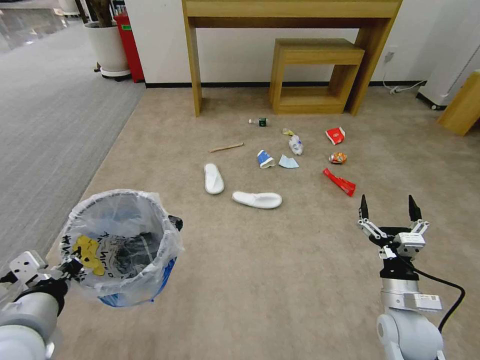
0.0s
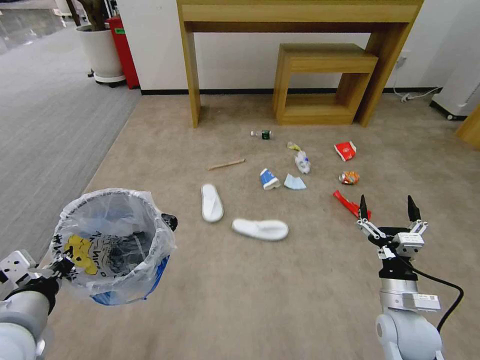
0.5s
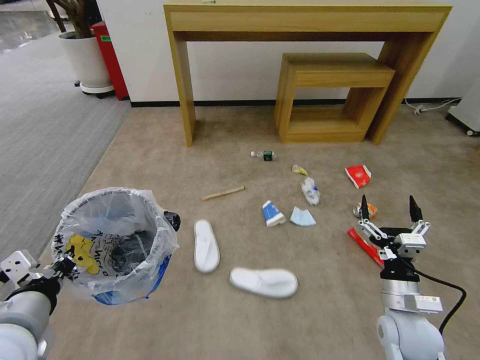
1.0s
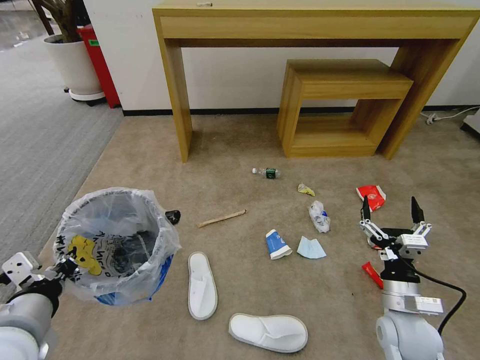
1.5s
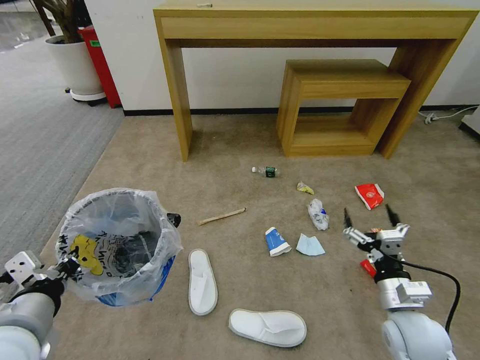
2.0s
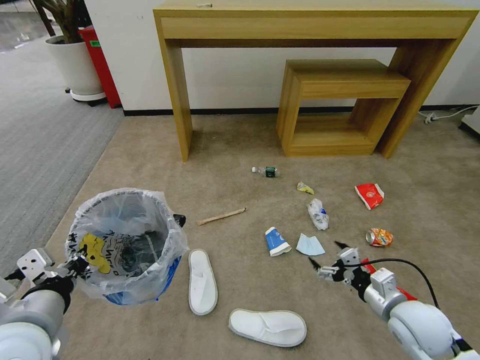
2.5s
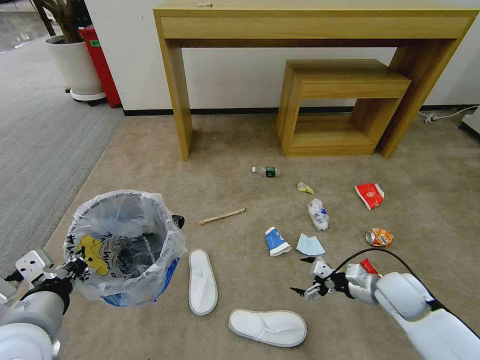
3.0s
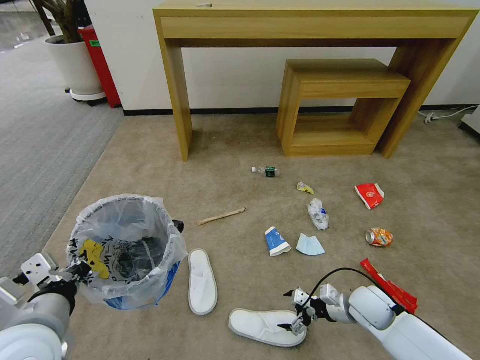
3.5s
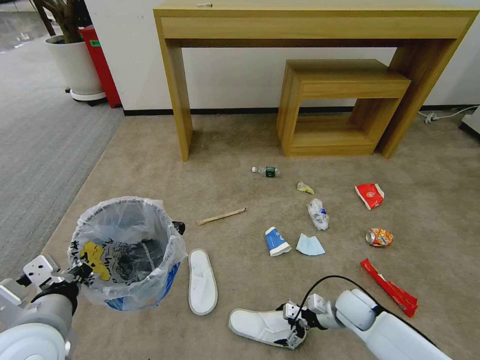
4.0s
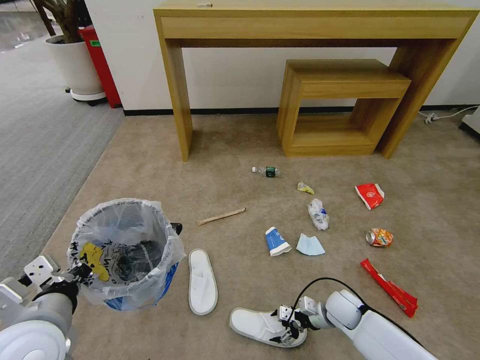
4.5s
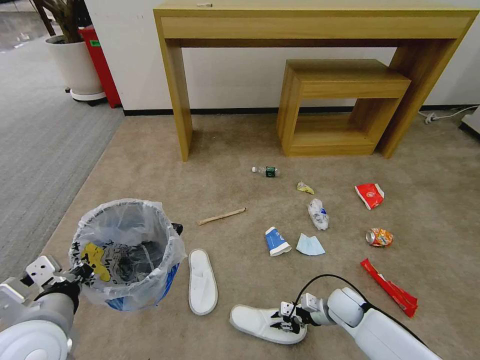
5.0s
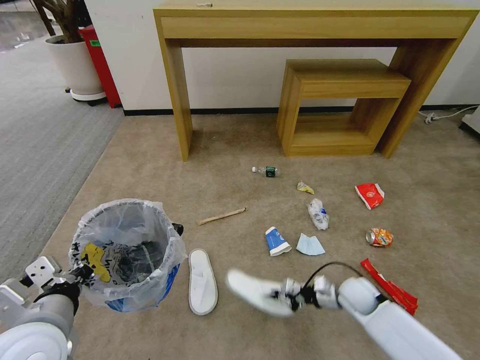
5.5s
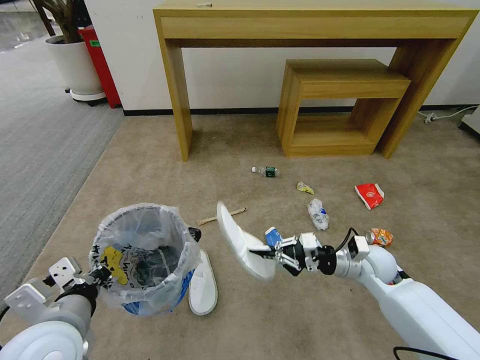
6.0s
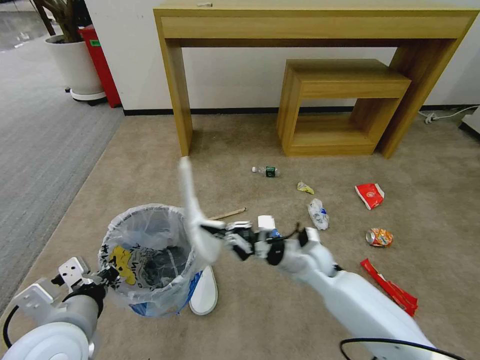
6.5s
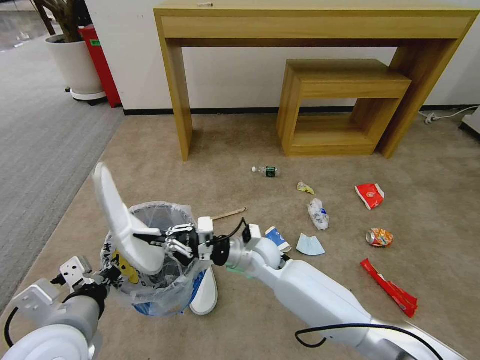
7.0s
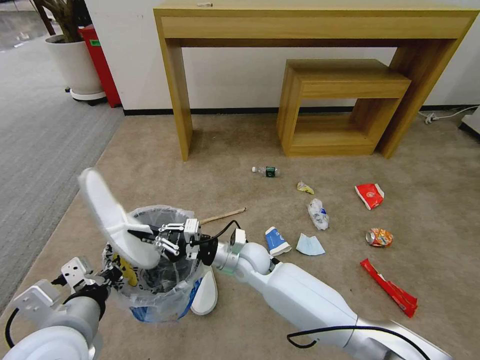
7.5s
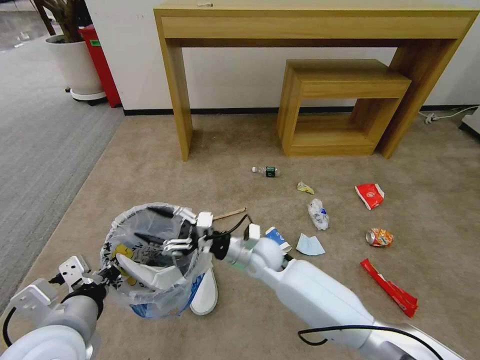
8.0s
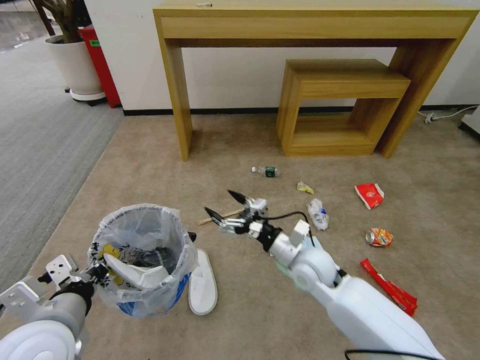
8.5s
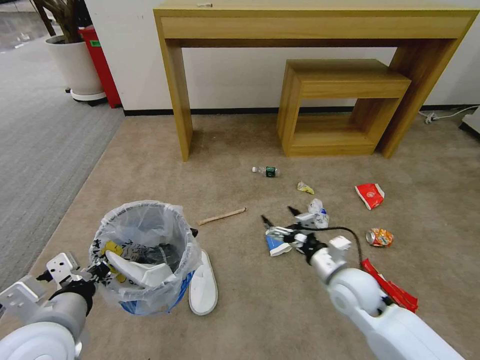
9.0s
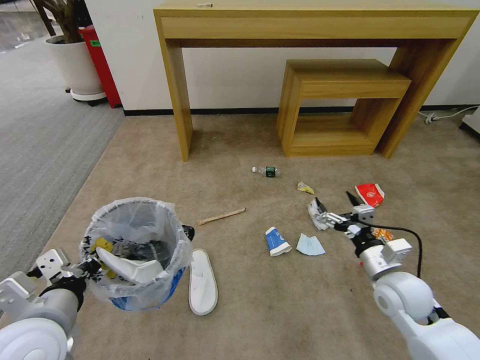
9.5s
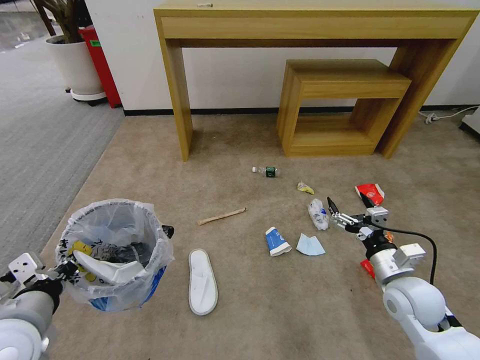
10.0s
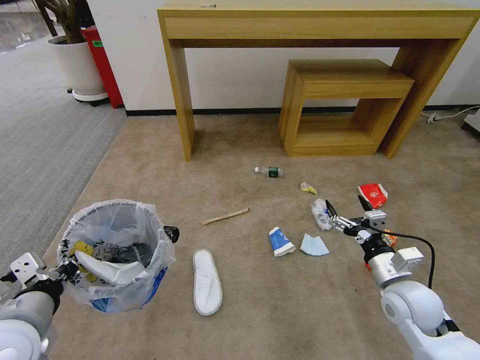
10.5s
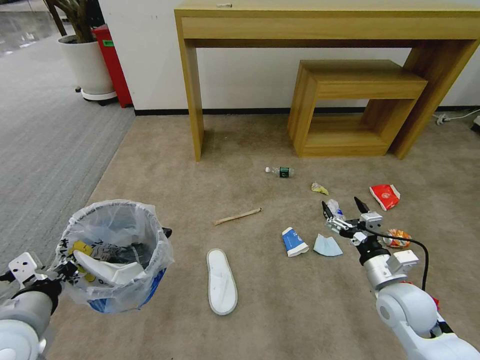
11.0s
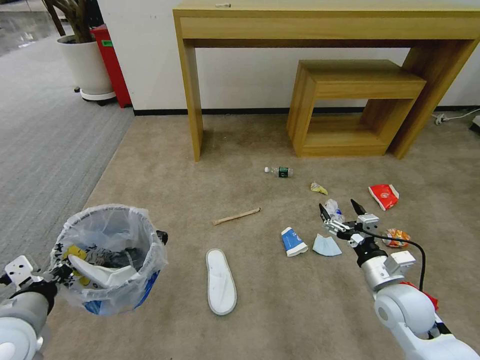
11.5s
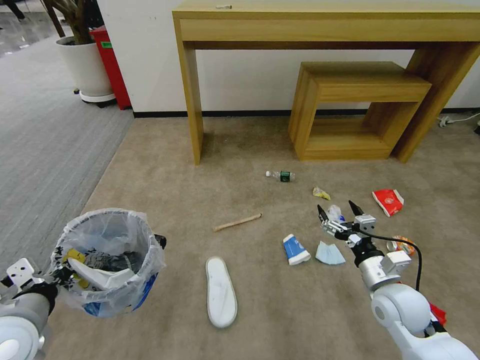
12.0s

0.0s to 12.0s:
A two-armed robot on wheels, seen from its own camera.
Task of the whole recording: Pick up the trash bin and place the garbage on the floor into it.
2.0s to 4.0s: The right gripper moves downward and forward, about 15 cm.
4.0s to 6.0s: The right gripper goes some 15 cm upward, and closes.
6.0s to 8.0s: The right gripper is displaced to the left by roughly 25 cm, and opens.
8.0s to 10.0s: The right gripper moves to the right, some 30 cm. Meanwhile the left gripper heads to the left, covering some 5 cm.

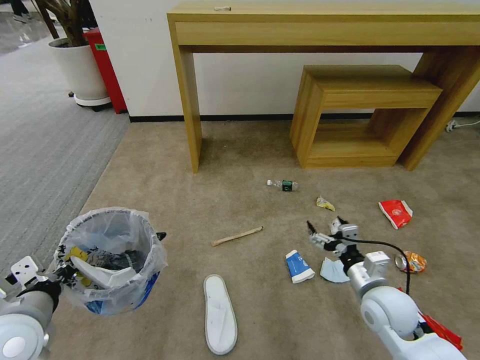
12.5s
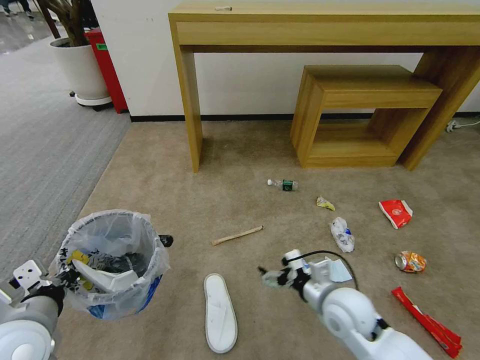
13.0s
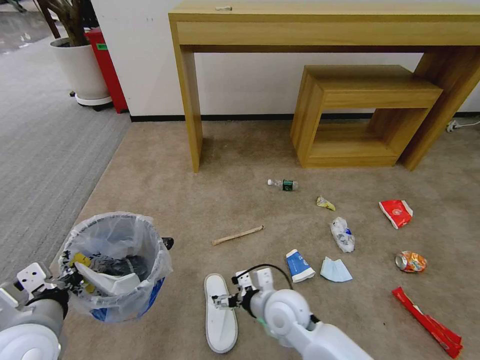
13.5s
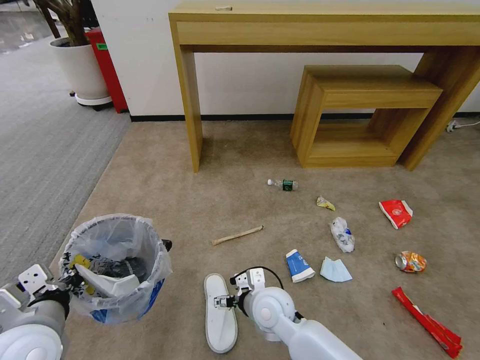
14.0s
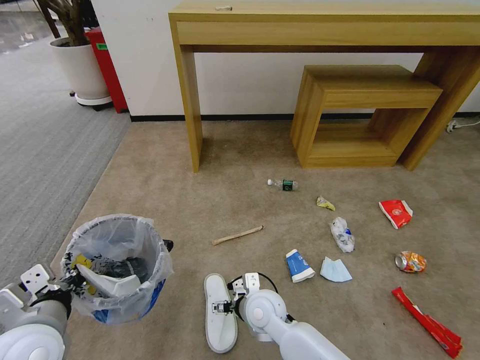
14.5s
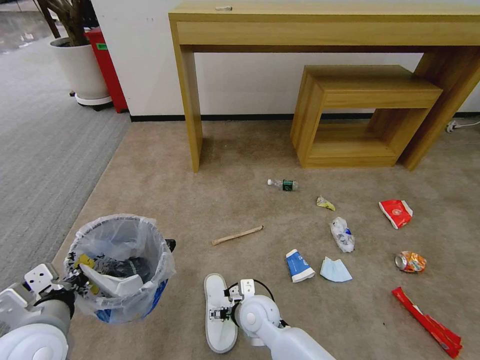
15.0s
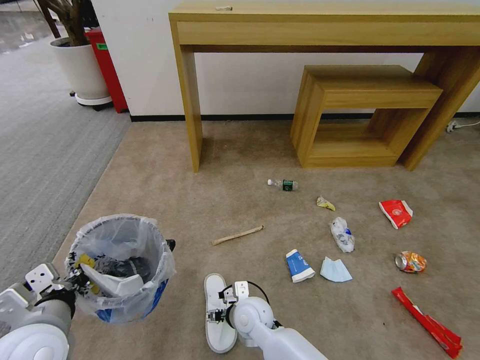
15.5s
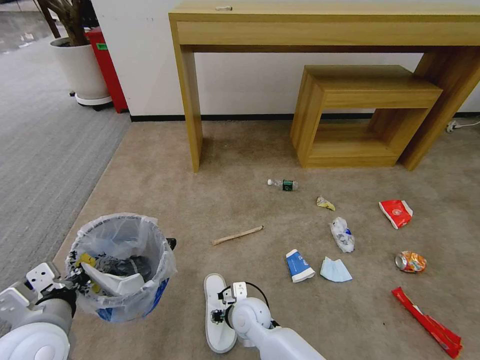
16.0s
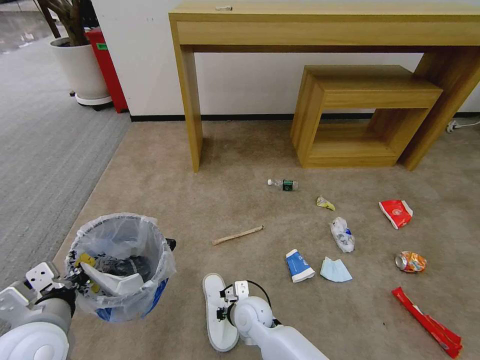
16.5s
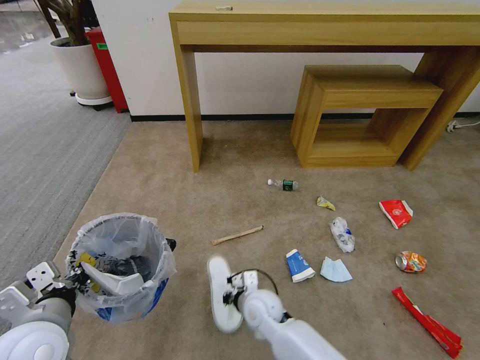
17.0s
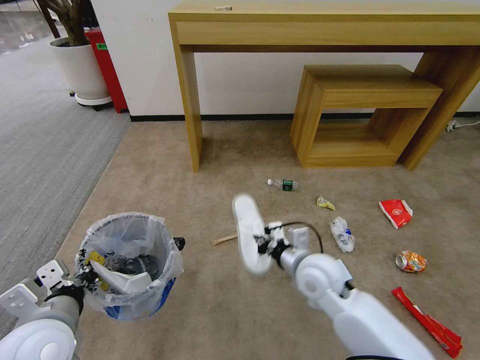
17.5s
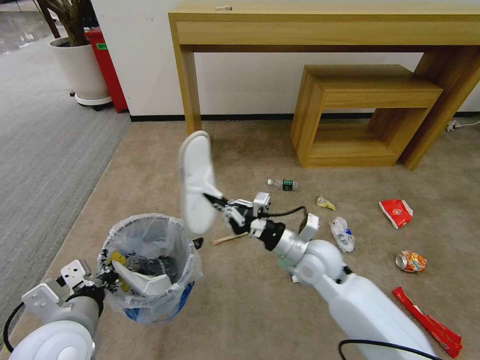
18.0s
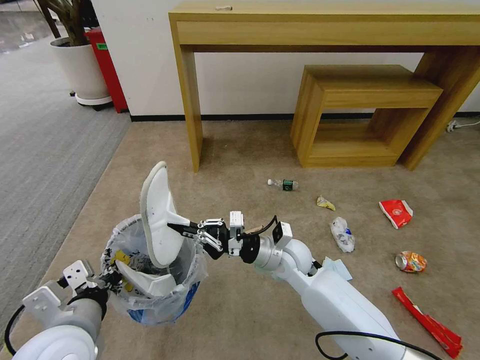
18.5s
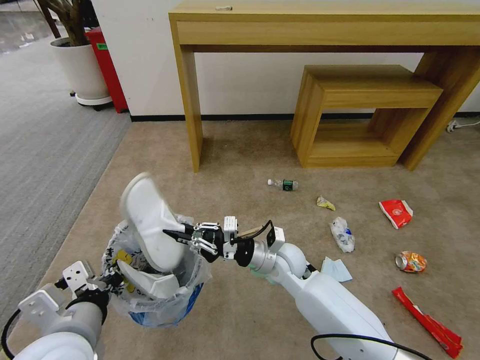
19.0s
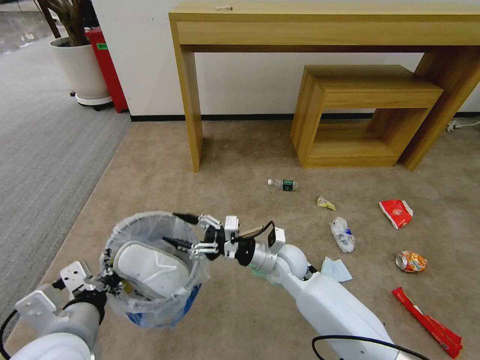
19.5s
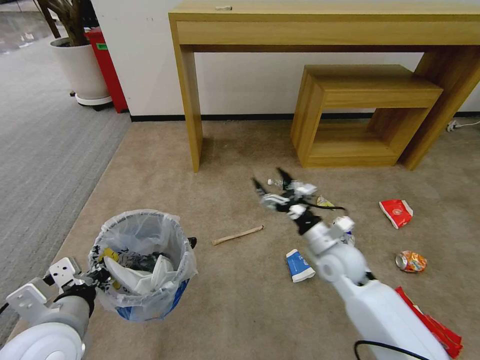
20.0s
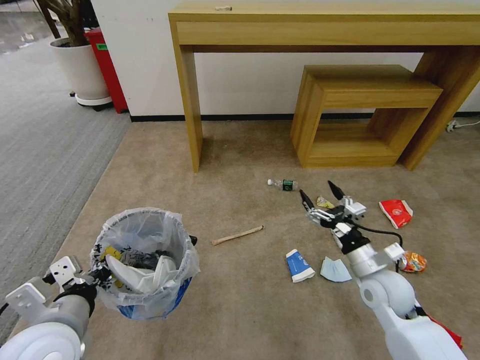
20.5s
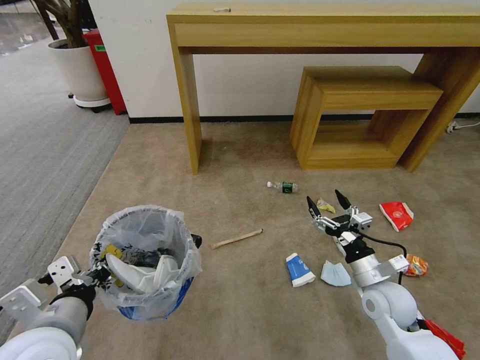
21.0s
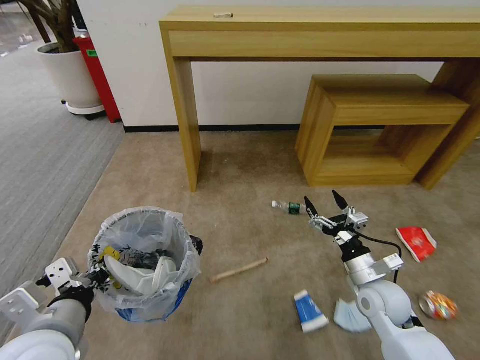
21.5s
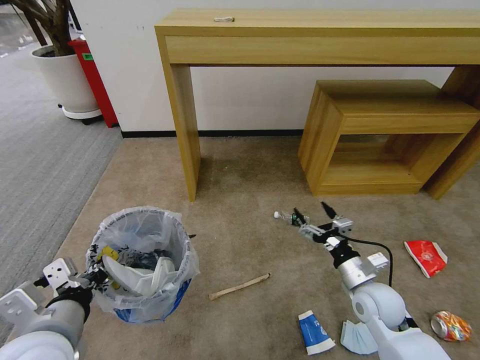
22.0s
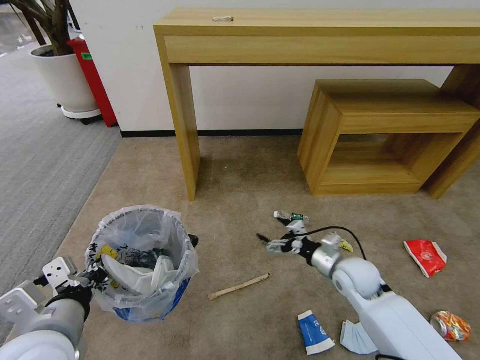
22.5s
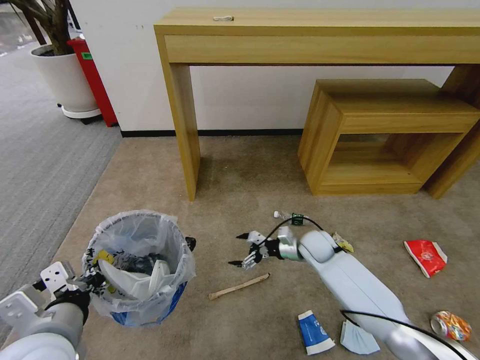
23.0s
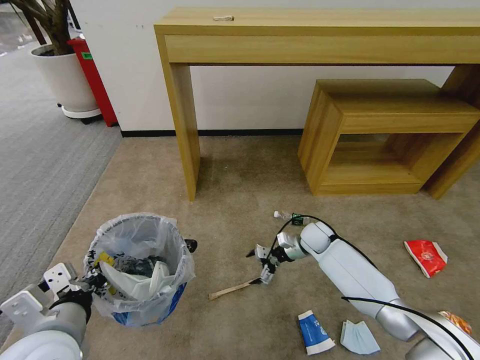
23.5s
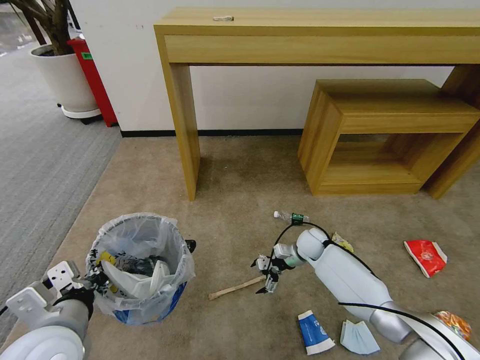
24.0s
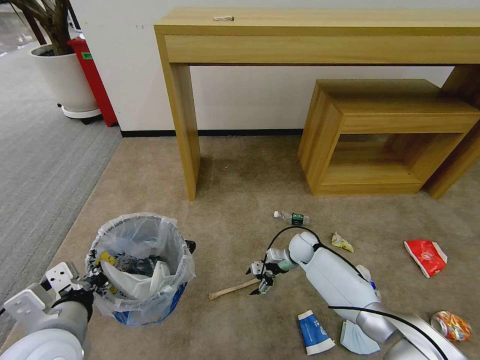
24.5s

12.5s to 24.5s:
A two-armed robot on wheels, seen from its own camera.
Task of the whole recording: Pick up the trash bin and place the garbage on the floor into it.
12.5s to 14.5s: The right gripper shifts approximately 25 cm to the left.
14.5s to 16.5s: The right gripper moves downward, some 5 cm, and closes its fingers.
16.5s to 18.5s: The left gripper shifts by about 5 cm. Meanwhile the right gripper shifts approximately 20 cm upward, to the right and forward.
18.5s to 20.5s: The right gripper shifts roughly 20 cm to the right, and opens up.
20.5s to 22.5s: The right gripper changes place by some 5 cm.
22.5s to 24.5s: The right gripper moves forward, downward and to the left, approximately 20 cm.

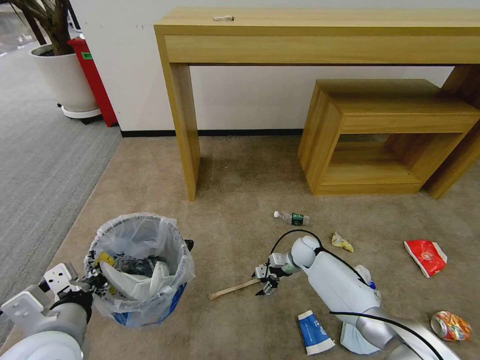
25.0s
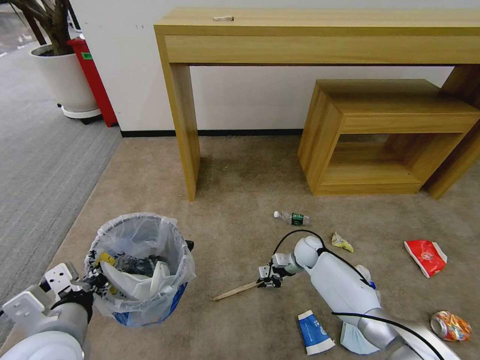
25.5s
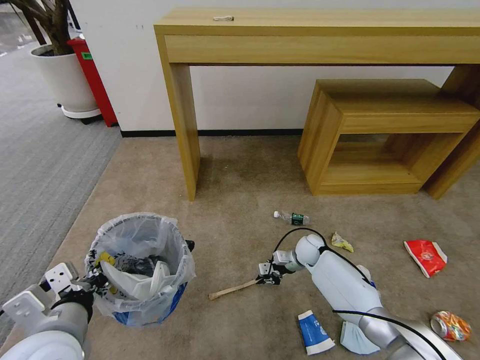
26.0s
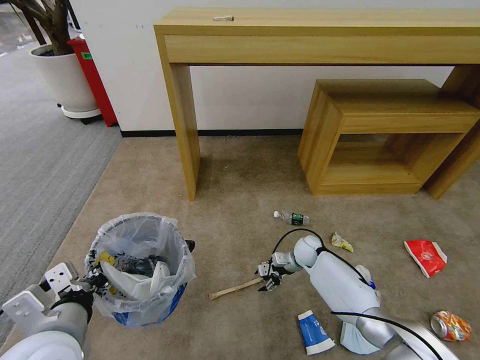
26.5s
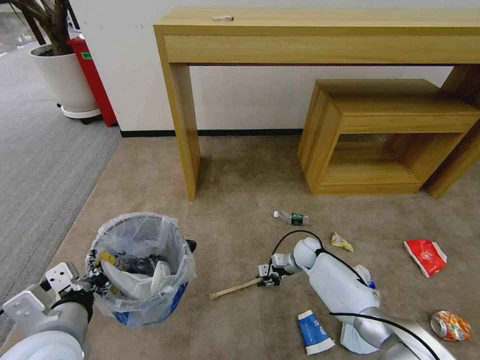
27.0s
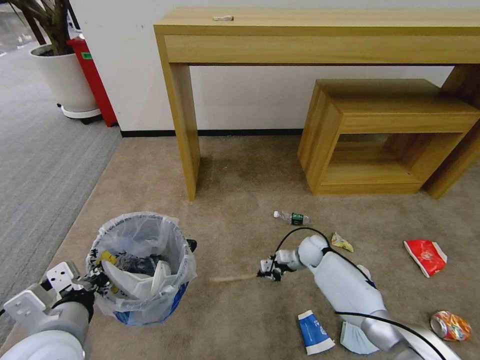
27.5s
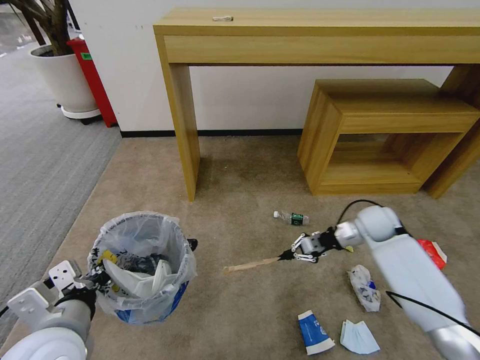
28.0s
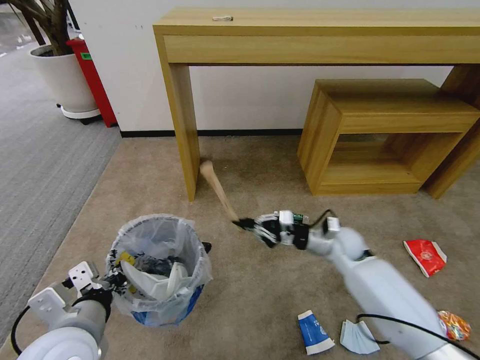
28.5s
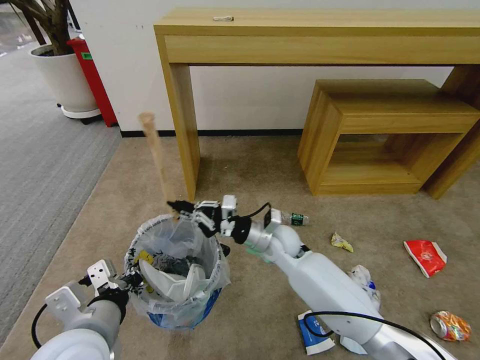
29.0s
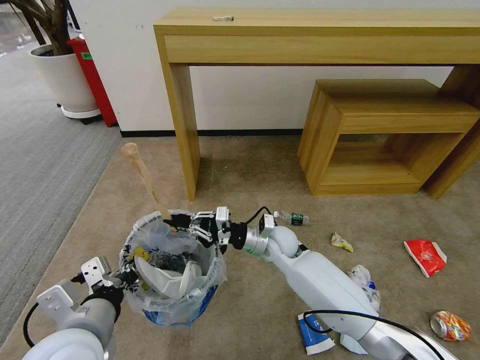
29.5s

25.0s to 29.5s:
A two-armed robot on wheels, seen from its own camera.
Task of the whole recording: Pick up the trash bin and place the garbage on the floor into it.
25.0s to 27.0s: The right gripper closes up.
27.0s to 29.5s: The right gripper goes some 20 cm upward and to the left.
